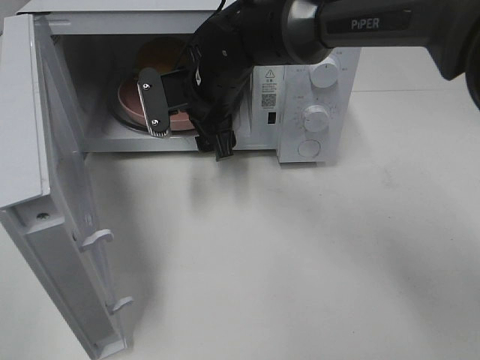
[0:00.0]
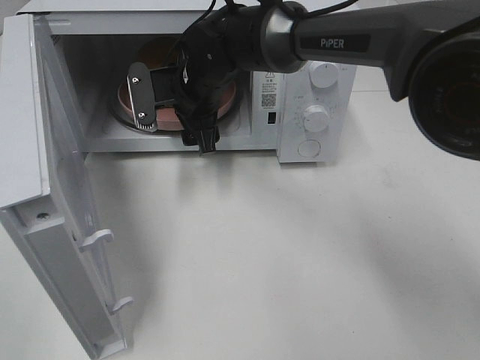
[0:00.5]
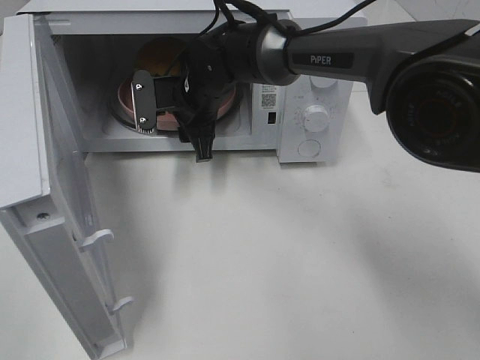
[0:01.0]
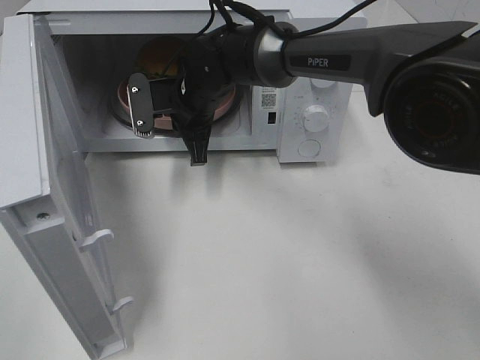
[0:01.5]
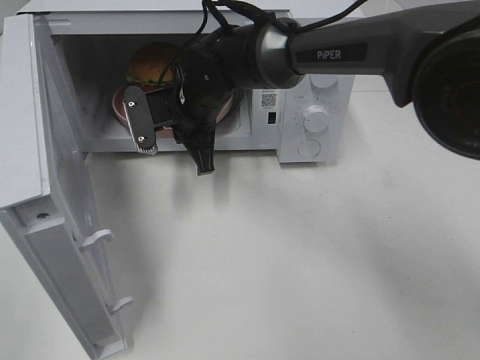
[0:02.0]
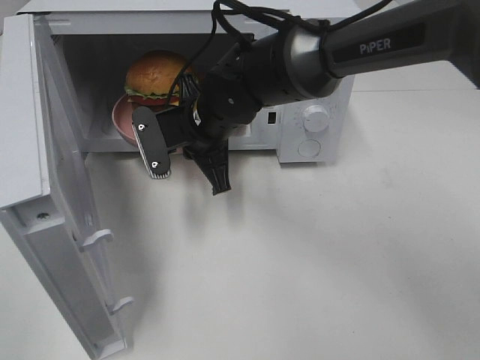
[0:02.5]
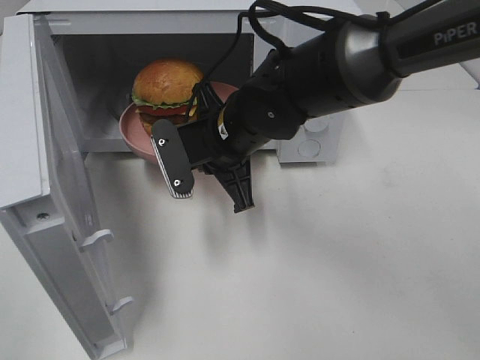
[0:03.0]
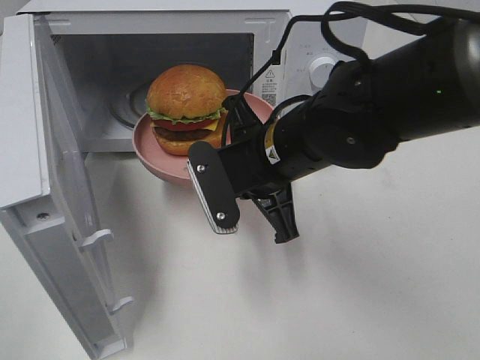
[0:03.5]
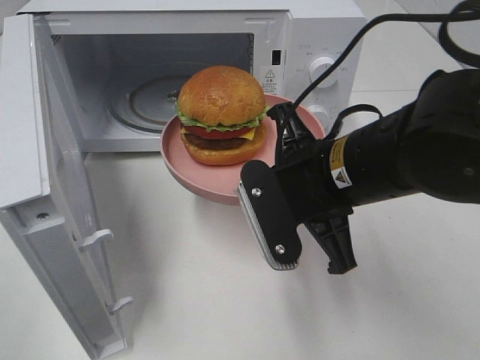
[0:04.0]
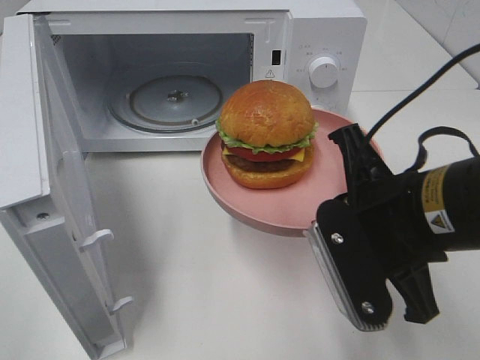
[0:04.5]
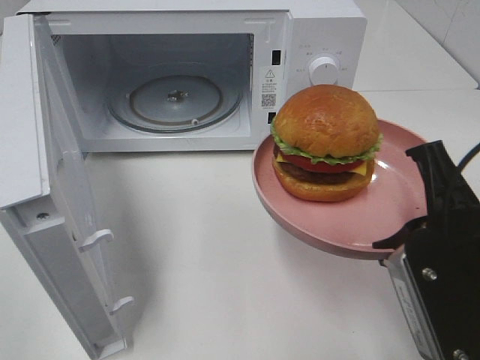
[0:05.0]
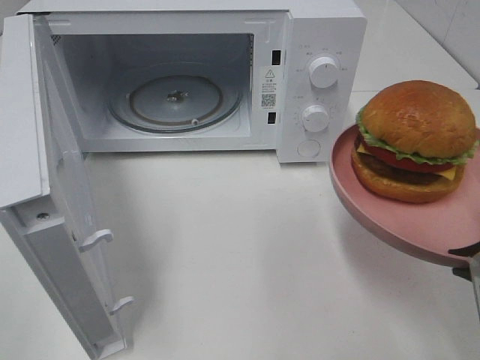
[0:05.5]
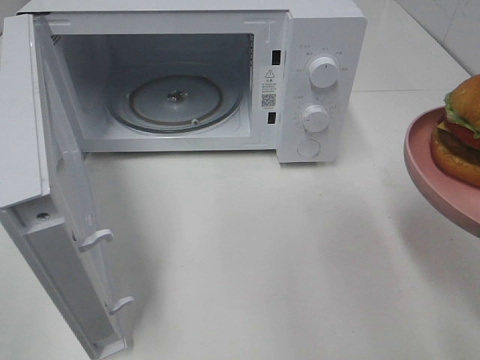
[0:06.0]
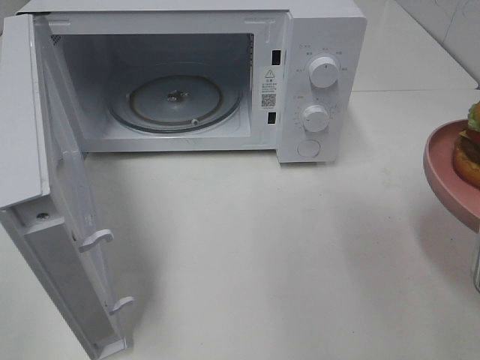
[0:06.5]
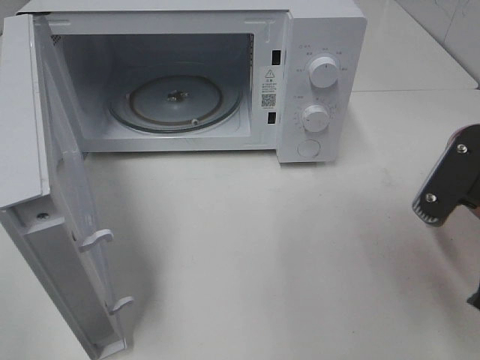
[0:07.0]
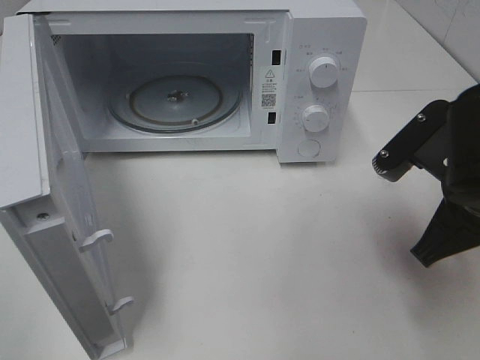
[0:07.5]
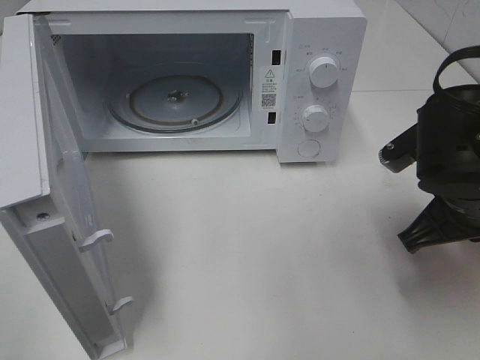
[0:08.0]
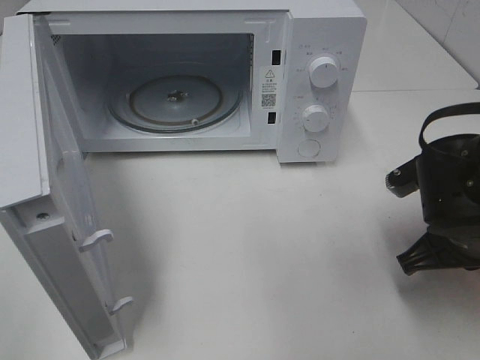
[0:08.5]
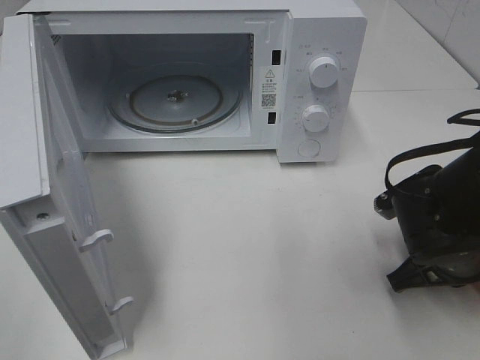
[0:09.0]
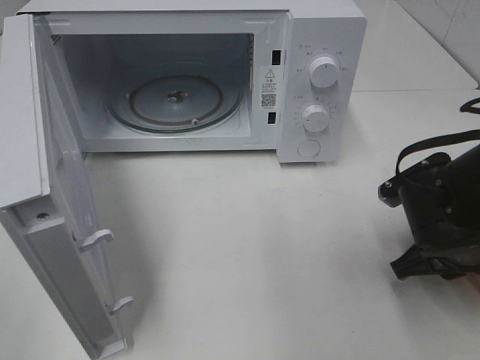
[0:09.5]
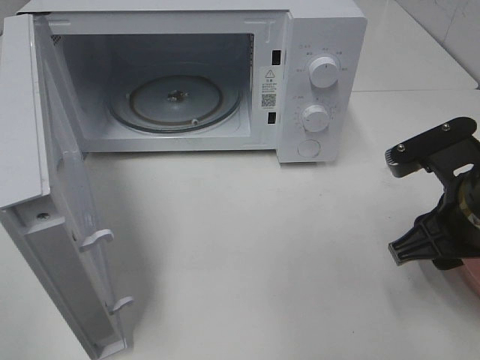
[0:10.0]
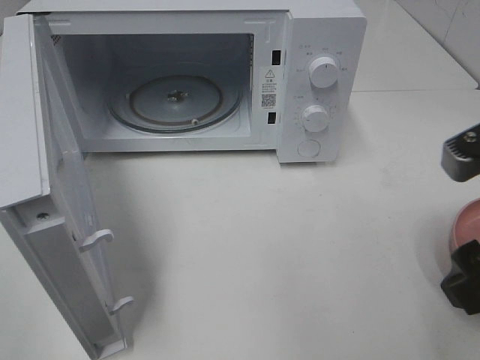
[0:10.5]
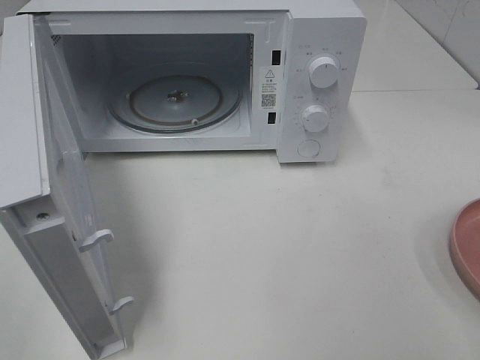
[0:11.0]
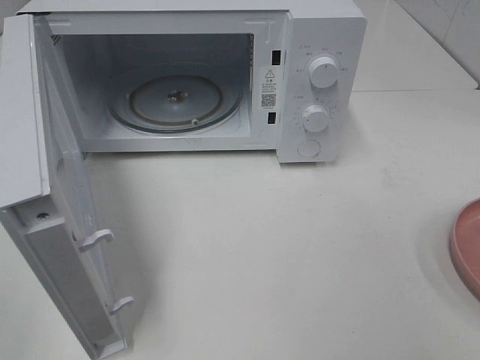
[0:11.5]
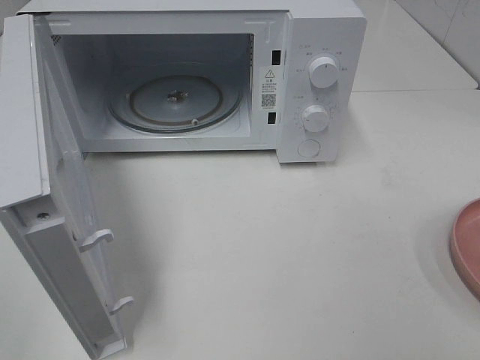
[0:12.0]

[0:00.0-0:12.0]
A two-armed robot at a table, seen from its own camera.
Task of the whole recording: Heat the burger.
Step, 1.5 to 9.5 s: Right hand: place the plate on the table.
0.0 to 2.0 s: The right gripper closes.
2.0 to 4.0 s: The right gripper heads backward and to the right, covering about 20 cm.
4.0 to 6.0 s: The right gripper moves to the right and backward, about 20 cm.
6.0 to 8.0 s: The right gripper is displaced forward and downward by about 15 cm.
8.0 to 10.0 s: The right gripper travels downward and back again, some 10 cm each way, and opens.
10.0 to 12.0 s: The right gripper heads backward, upward and to the right, covering roughly 25 cm.

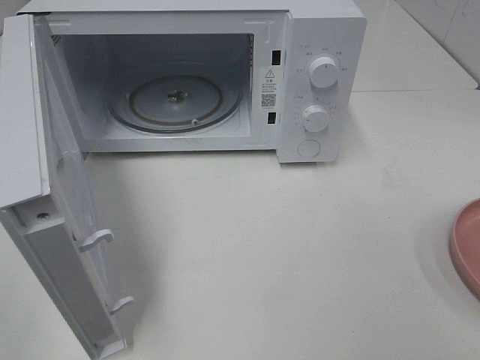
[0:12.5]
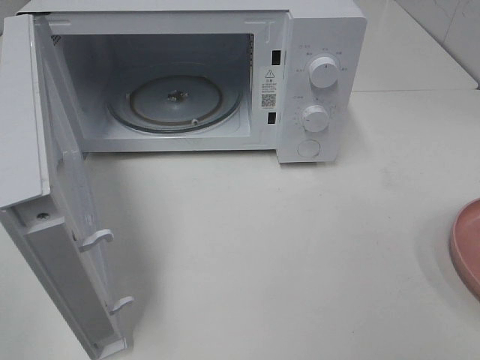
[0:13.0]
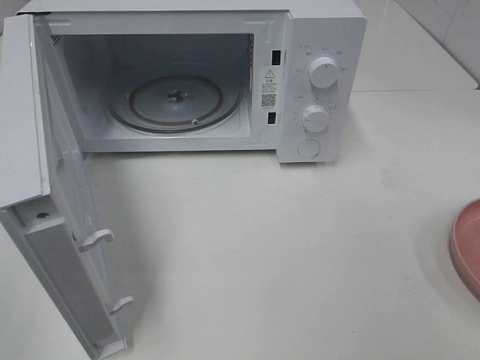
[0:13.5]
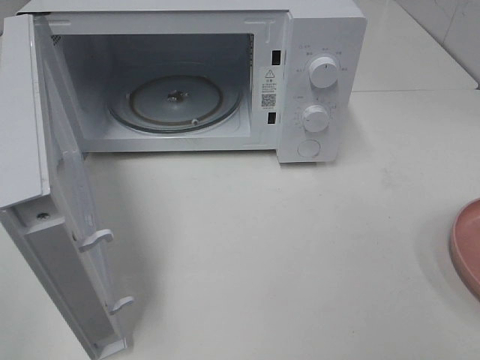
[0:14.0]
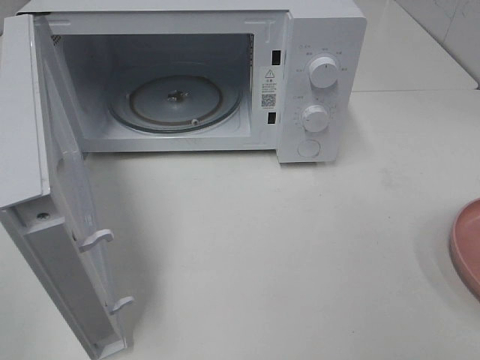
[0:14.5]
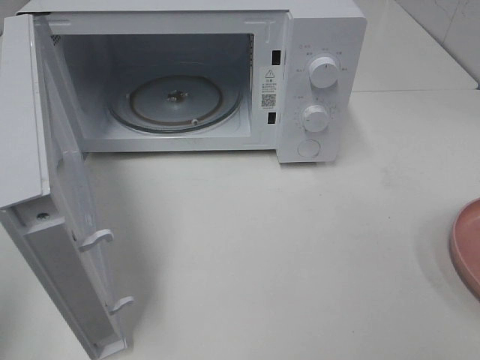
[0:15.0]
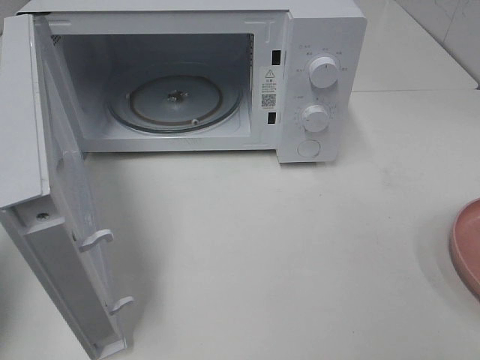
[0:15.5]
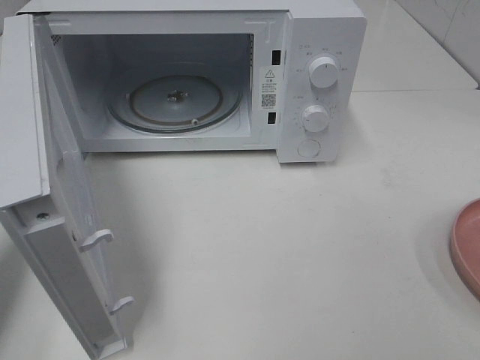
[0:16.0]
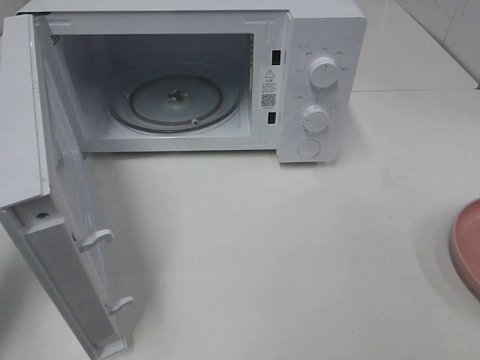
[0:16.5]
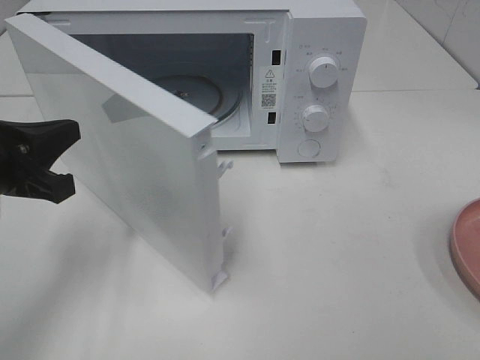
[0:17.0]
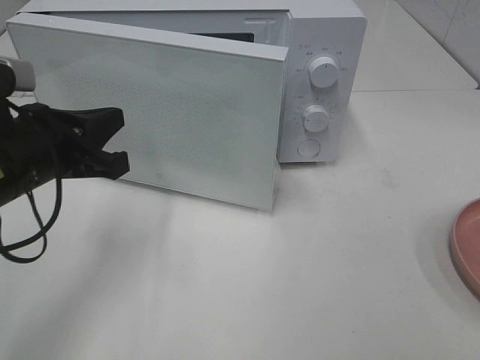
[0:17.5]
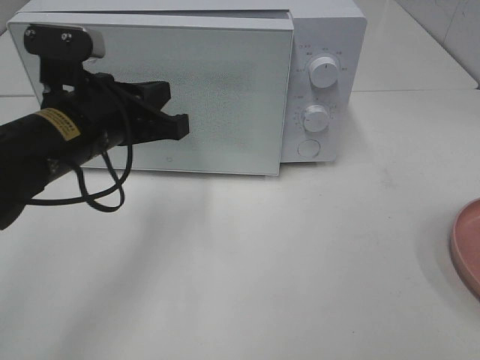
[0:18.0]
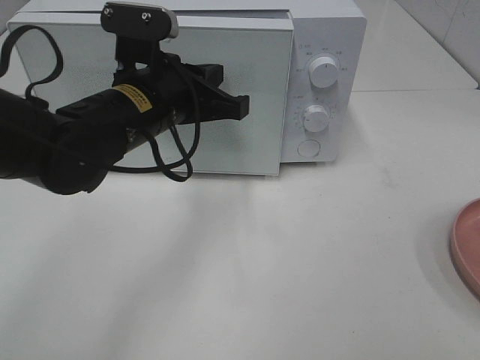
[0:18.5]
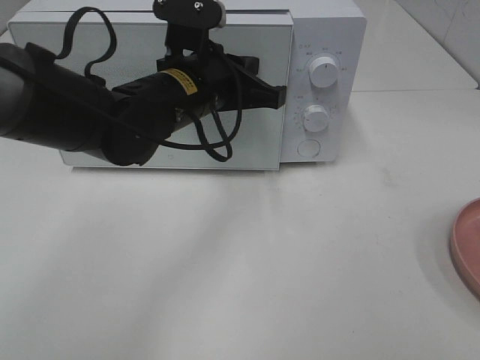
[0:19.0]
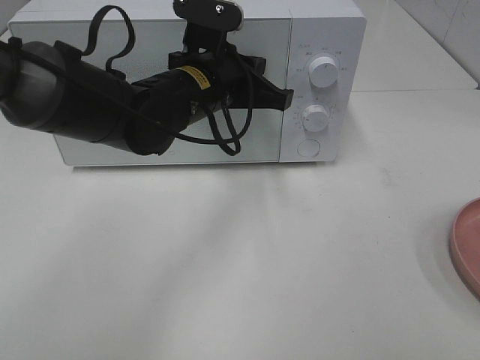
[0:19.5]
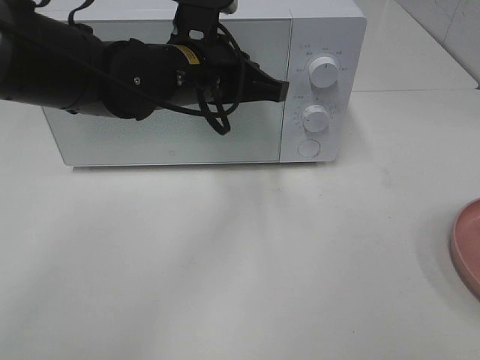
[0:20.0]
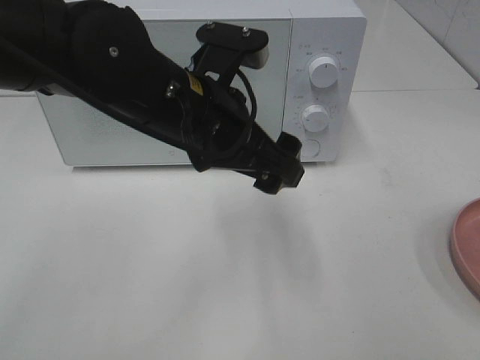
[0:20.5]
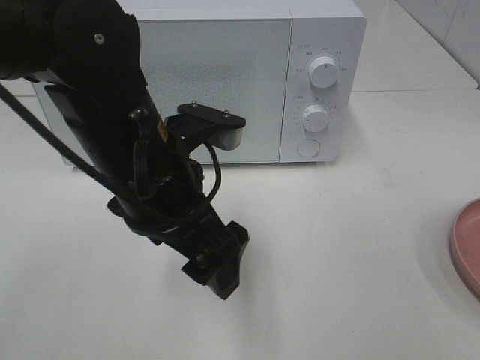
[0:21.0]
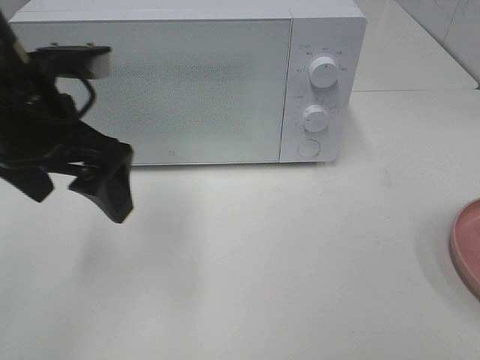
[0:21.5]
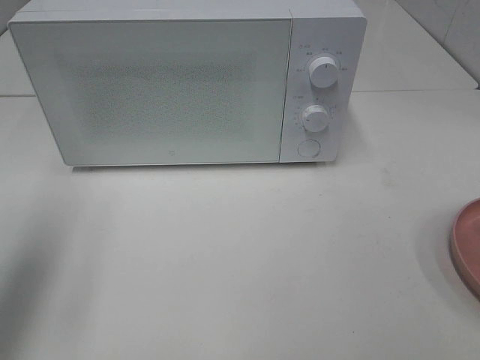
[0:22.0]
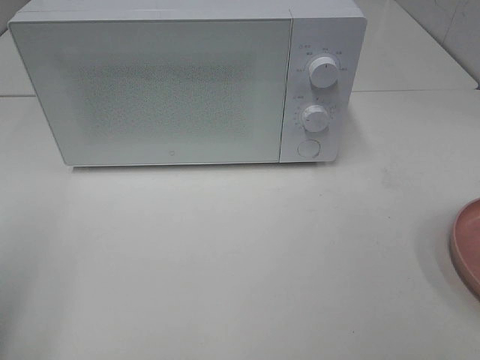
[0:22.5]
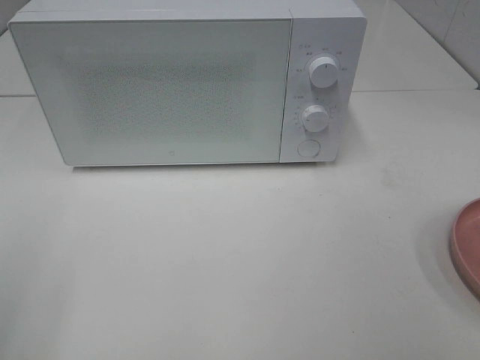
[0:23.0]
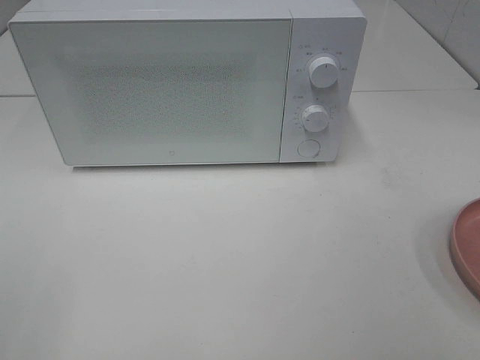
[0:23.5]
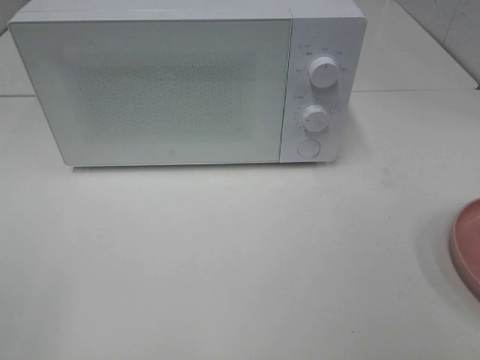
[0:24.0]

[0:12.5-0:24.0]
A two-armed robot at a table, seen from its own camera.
Task of the whole recording: Heat the burger.
Step, 12.5 to 19.5 s: Left hand: close the microwave door.
14.5 to 16.5 s: The left gripper travels forward and downward by roughly 25 cm, and closes its fingers.
16.5 to 18.5 s: The left gripper shifts roughly 25 cm to the right and forward.
18.5 to 20.0 s: The left gripper ends up about 5 cm from where it was.
20.0 to 22.0 s: The left gripper is displaced to the left and backward by about 30 cm, and opens up.
22.0 to 24.0 s: The left gripper travels backward by roughly 20 cm.

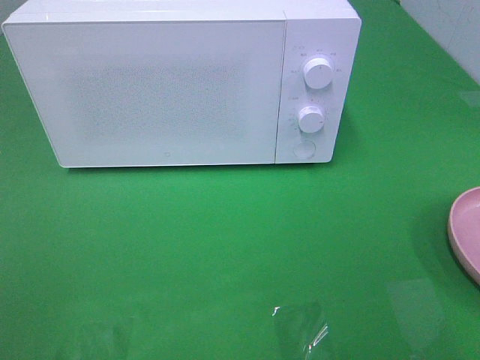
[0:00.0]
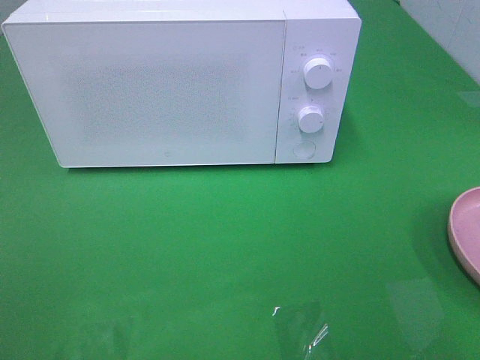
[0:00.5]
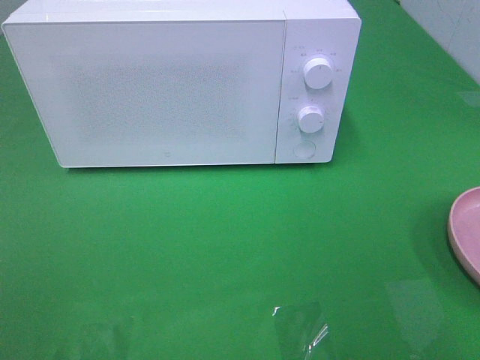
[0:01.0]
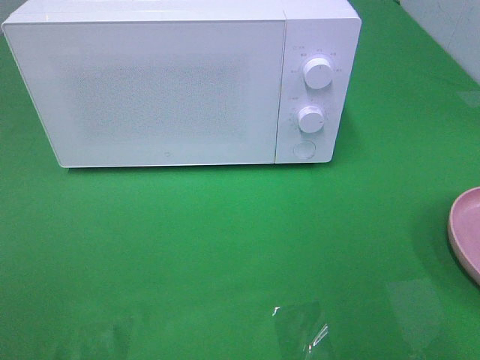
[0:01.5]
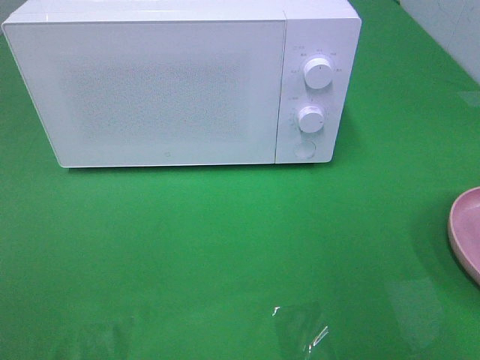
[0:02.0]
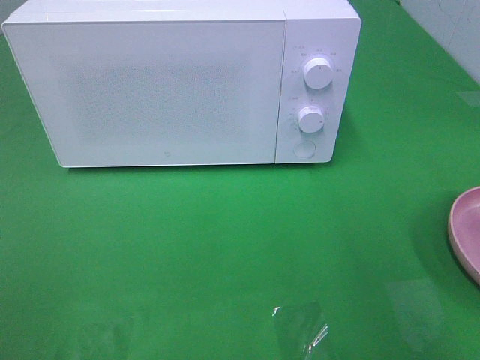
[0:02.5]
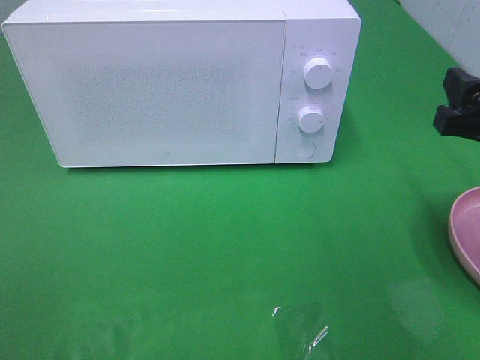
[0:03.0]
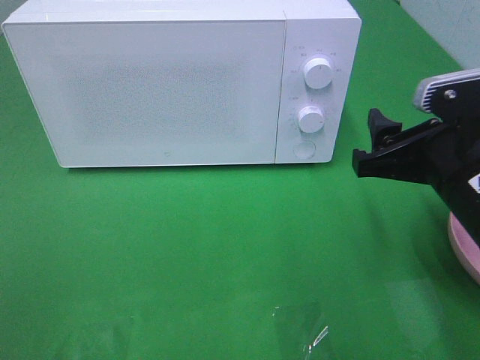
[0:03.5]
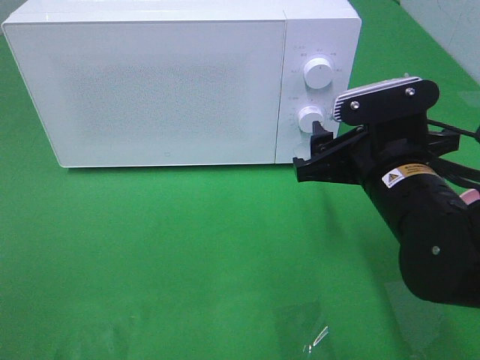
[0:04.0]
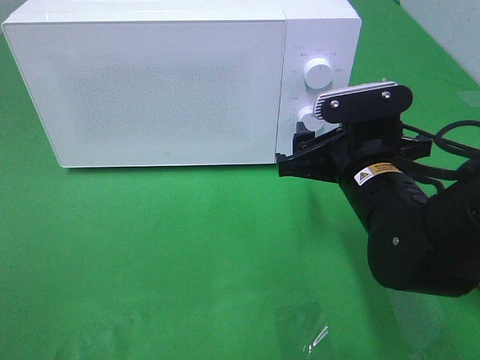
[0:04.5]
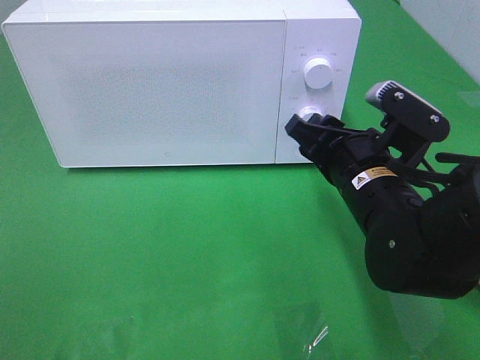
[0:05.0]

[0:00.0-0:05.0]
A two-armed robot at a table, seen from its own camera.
Task of the whole recording: Heat the burger.
2.5 to 5.0 s: The right gripper moves to the left, downward and forward, about 20 cm.
